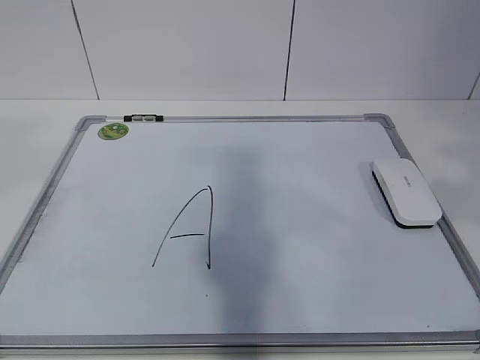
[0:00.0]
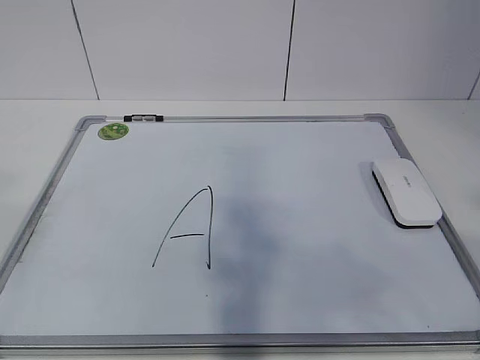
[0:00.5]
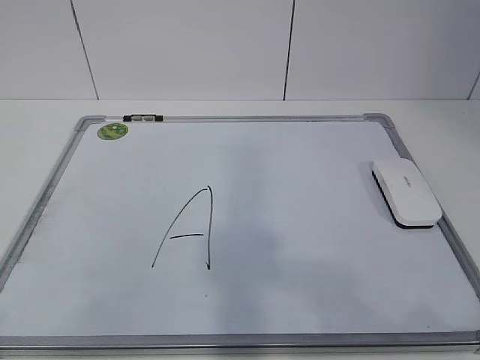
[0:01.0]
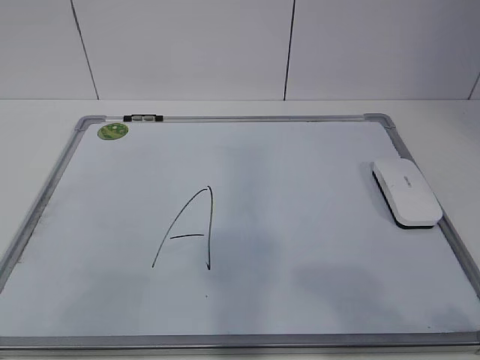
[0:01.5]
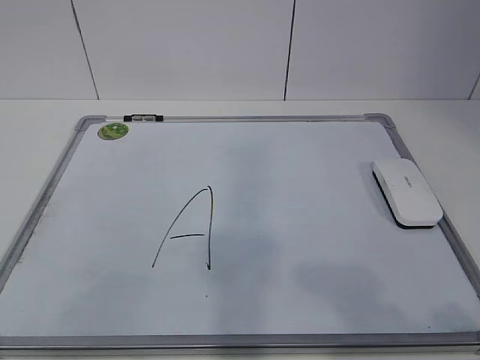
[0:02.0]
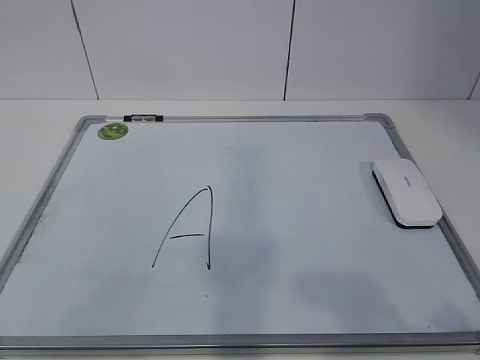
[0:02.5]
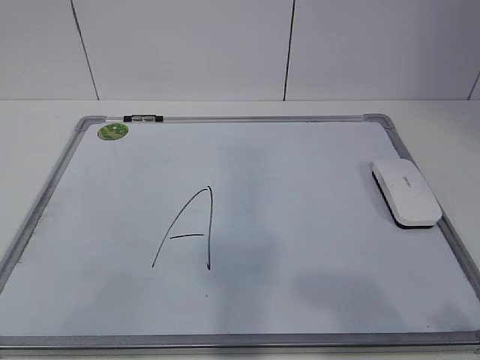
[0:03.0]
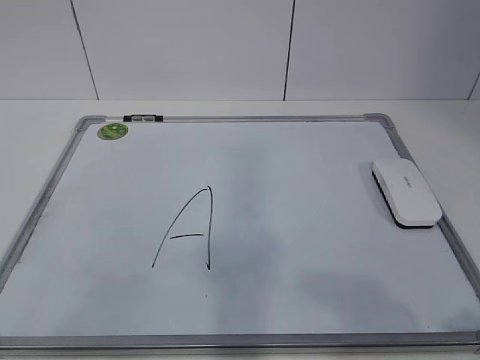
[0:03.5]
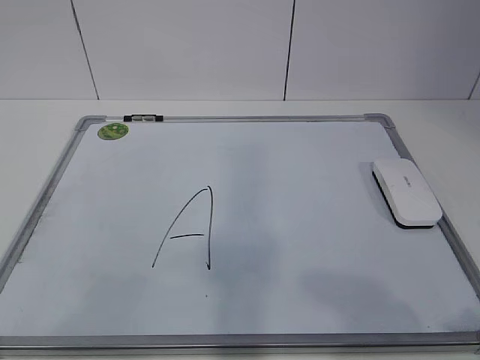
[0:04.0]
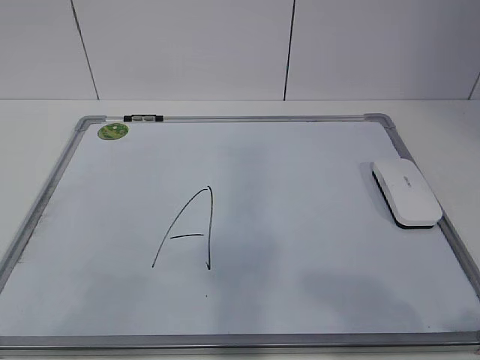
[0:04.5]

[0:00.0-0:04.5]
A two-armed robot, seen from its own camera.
Task of the whole recording: pick up the eraser on the blackboard and erase the letter "a".
0:00.0 to 0:02.0: The left gripper goes roughly 20 cm downward; the right gripper goes some 15 cm downward and backward.
